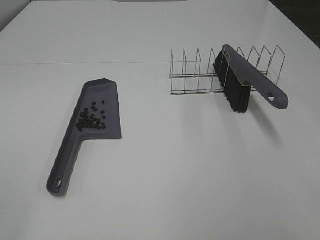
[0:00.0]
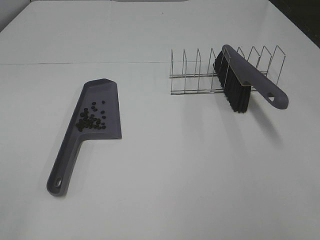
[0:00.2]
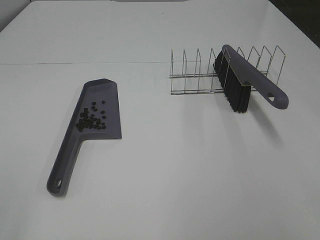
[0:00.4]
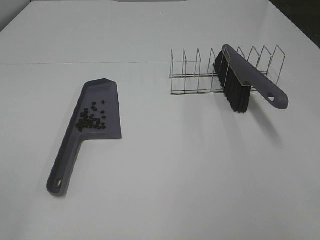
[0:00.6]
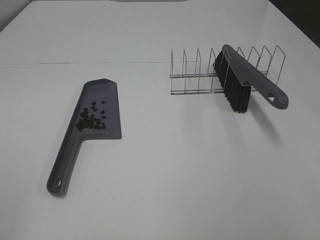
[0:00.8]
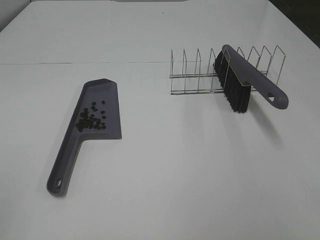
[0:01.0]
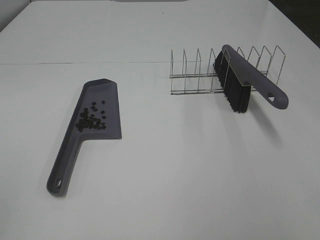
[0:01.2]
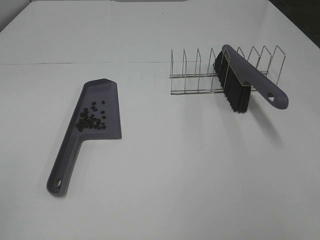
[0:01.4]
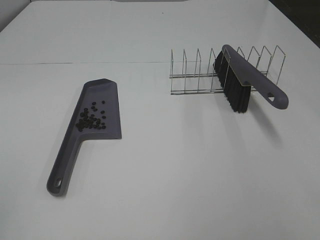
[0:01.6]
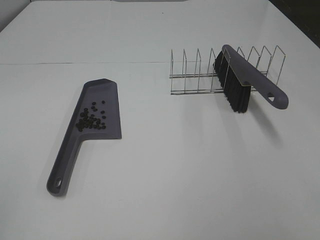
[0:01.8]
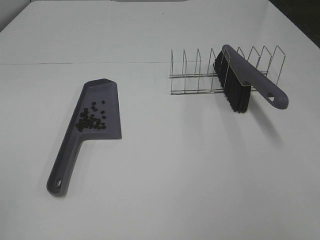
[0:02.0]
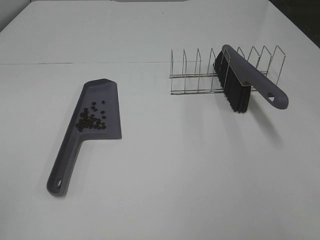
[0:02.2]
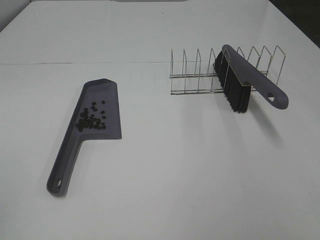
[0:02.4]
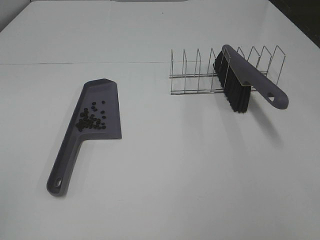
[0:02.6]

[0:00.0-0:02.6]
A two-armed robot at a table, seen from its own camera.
Task of the whole recording: Sweep Coffee Bean.
0:01.2 to 0:02.6: The two grippers keep their place.
